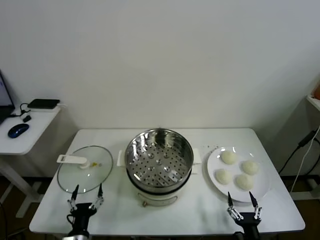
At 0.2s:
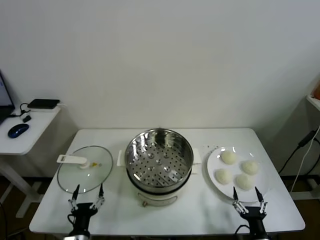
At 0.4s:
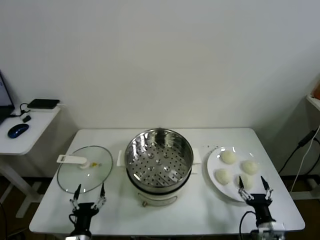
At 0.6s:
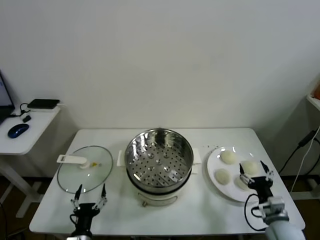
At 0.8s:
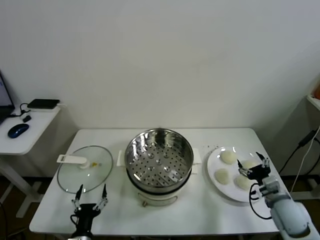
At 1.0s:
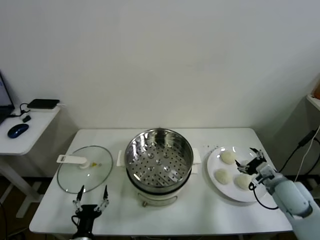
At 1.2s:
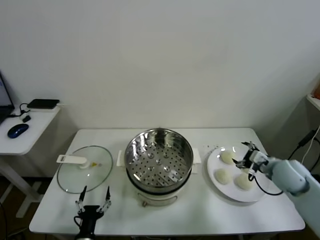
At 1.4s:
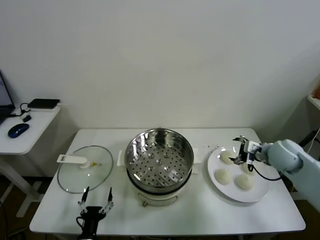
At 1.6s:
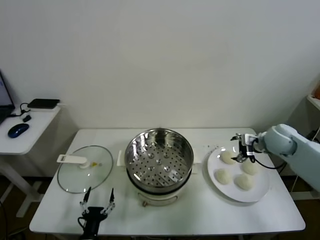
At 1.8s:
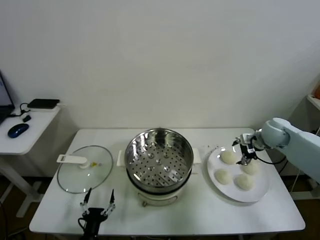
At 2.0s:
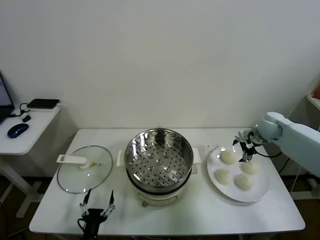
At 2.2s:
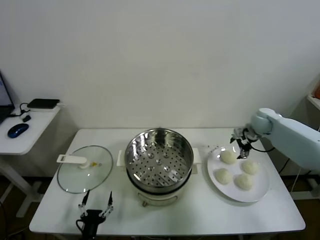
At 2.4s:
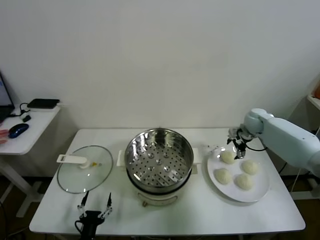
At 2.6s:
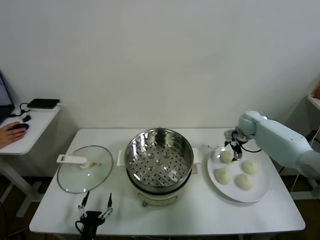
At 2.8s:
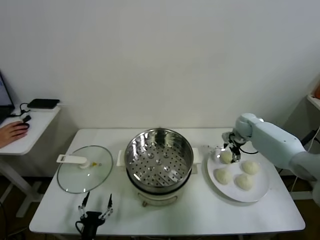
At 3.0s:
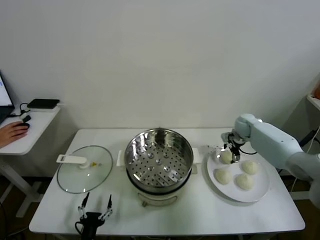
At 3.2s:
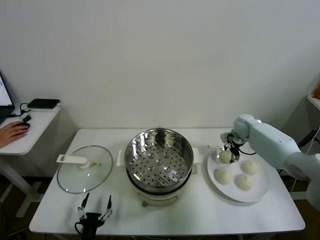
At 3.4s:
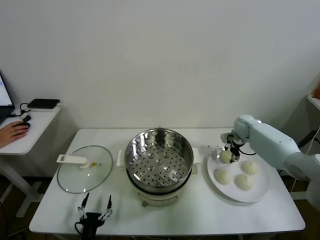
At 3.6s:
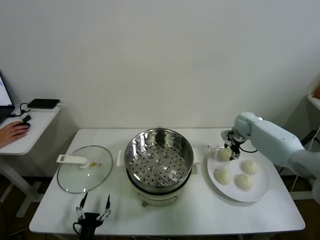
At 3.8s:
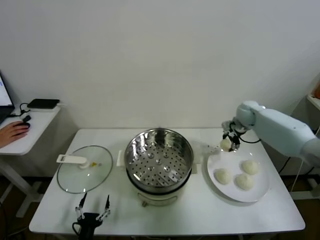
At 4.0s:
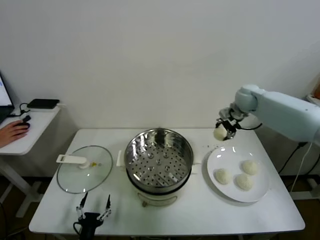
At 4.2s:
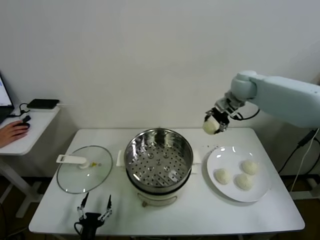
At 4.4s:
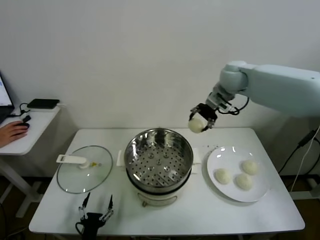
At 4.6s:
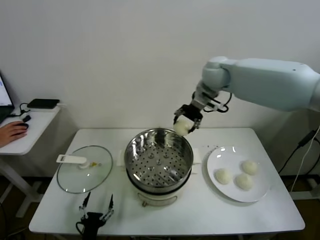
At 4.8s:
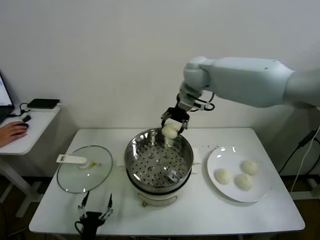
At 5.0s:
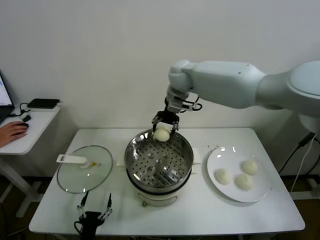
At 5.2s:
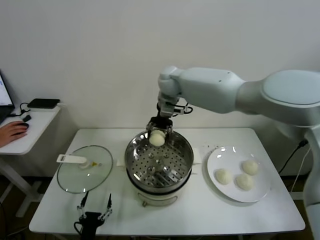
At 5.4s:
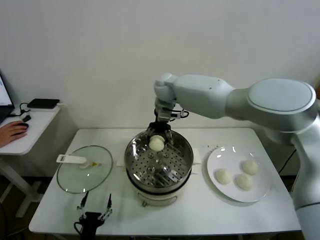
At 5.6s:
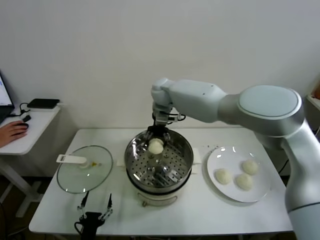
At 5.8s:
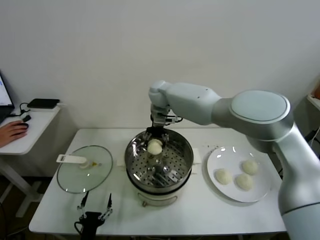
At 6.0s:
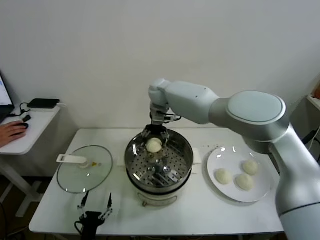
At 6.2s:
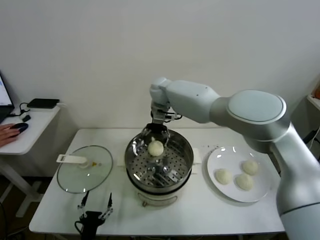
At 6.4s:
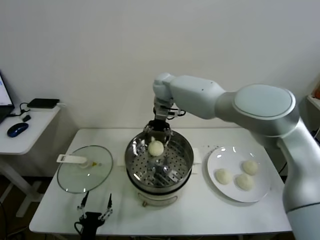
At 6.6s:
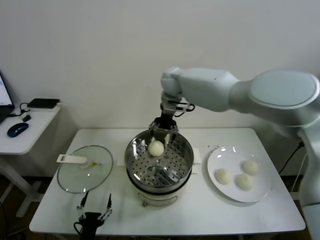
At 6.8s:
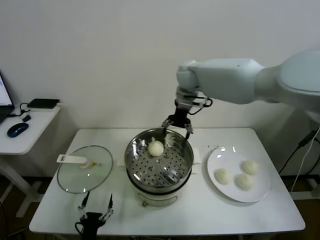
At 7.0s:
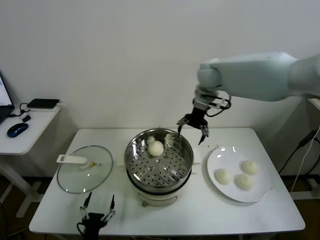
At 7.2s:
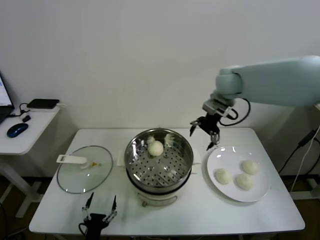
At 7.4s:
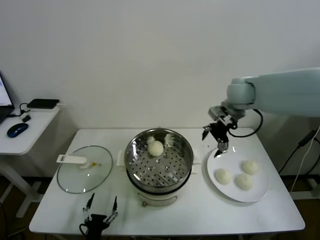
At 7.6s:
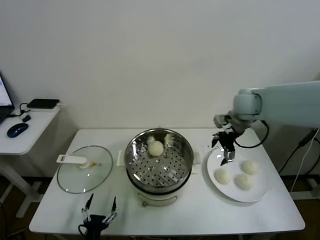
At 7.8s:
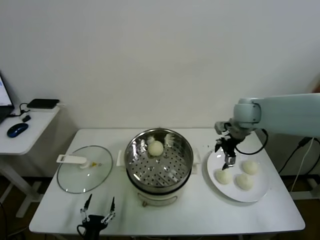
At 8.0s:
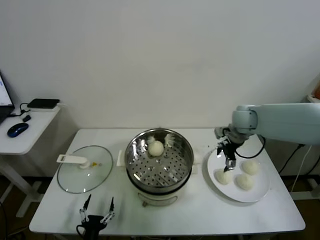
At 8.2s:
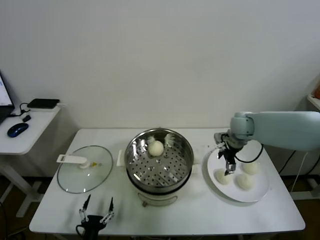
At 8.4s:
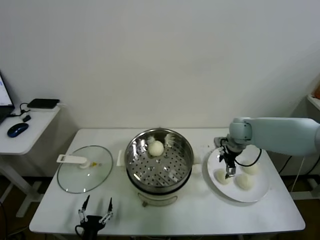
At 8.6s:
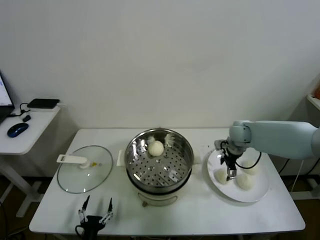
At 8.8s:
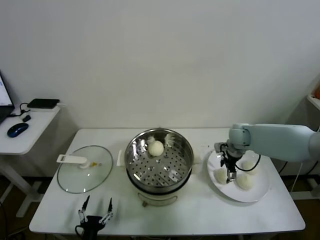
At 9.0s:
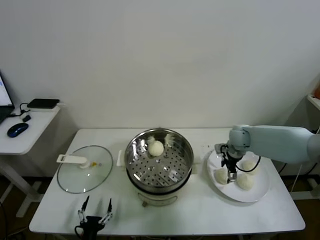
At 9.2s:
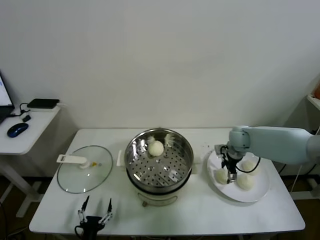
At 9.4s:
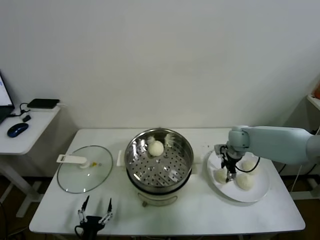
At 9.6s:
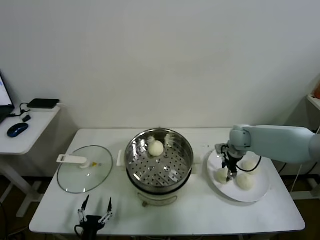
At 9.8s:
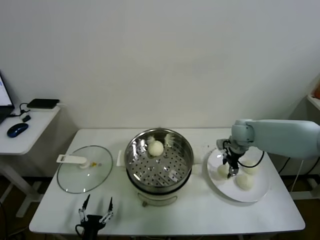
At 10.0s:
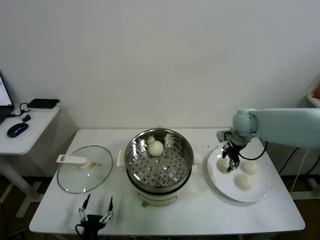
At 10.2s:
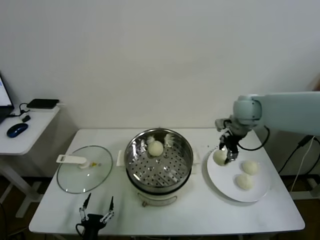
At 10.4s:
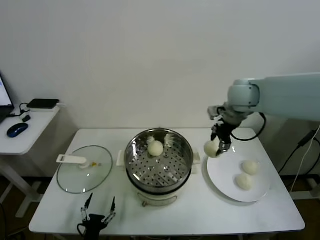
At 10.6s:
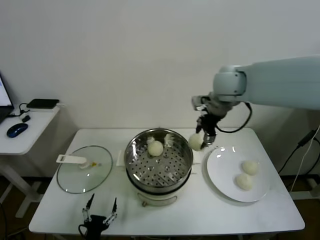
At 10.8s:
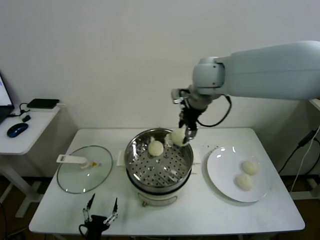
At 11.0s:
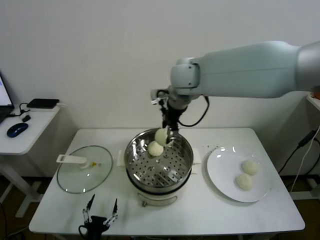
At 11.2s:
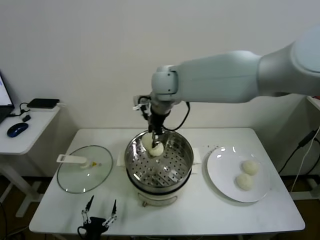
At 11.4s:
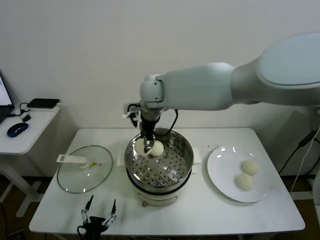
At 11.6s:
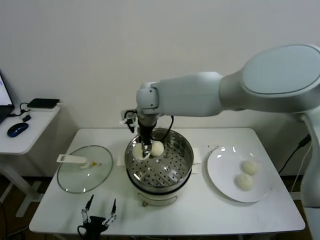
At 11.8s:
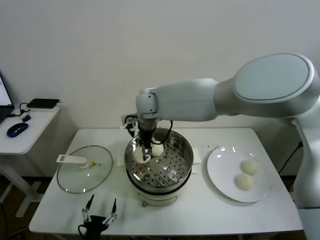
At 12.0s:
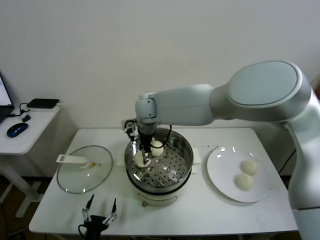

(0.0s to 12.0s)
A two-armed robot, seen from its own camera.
Task of the whole recording: take steamed baozi put them in steamer.
Step, 0.0s - 3.4s: Grasp the baozi in the plate with right gripper.
Step, 3.6s - 6.2s: Place the baozi on the steamer with right gripper.
Step, 6.4s - 9.4s: Grasp the baozi in the plate with right gripper.
1.6s - 3.0s: The right gripper shifts roughly 15 cm forward and downward.
3.0s - 4.4s: The right gripper shifts about 30 cm upward and to the left, and closes its fingers.
4.4s - 6.0s: The right gripper heads to the left and downward, covering about 20 cm, and opens.
6.0s - 7.6s: The right gripper goes approximately 30 cm to the right.
7.6s - 9.0s: The right gripper goes approximately 15 cm downward.
9.0s - 10.4s: The right gripper heads upward, covering approximately 25 cm, and closes up.
10.4s - 12.0s: The right gripper is displaced to the left by some 25 cm.

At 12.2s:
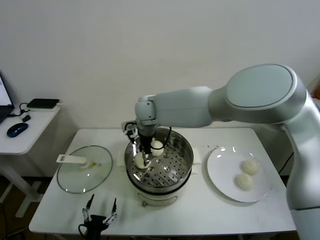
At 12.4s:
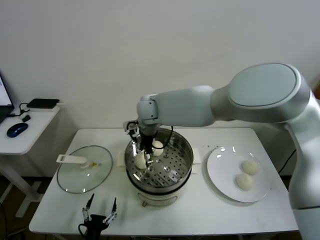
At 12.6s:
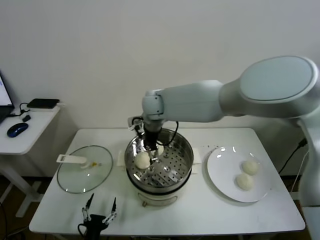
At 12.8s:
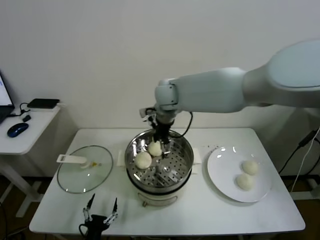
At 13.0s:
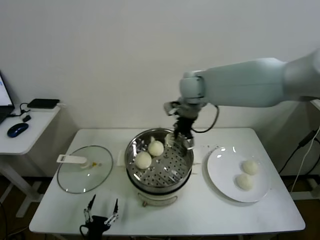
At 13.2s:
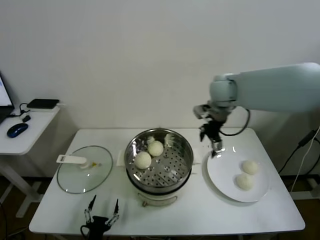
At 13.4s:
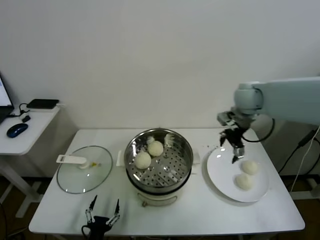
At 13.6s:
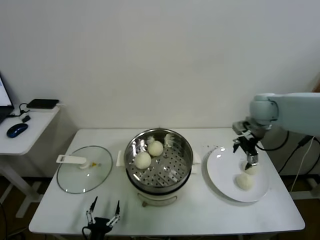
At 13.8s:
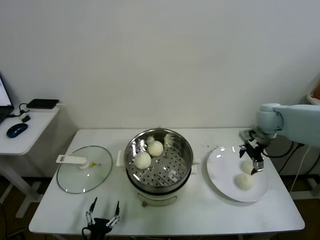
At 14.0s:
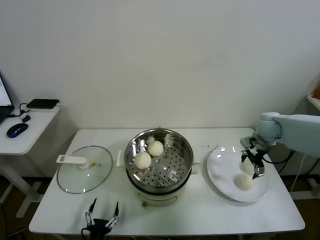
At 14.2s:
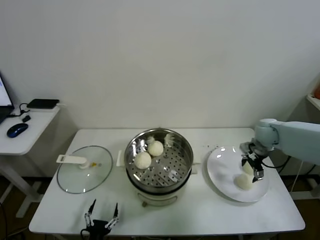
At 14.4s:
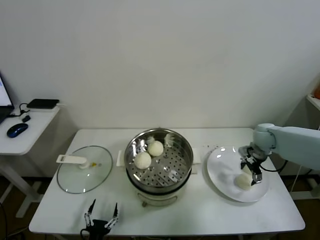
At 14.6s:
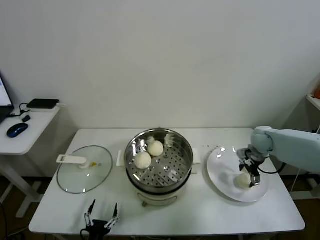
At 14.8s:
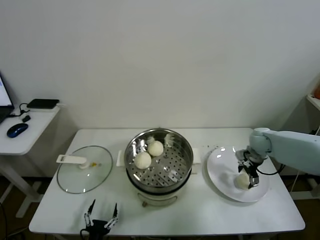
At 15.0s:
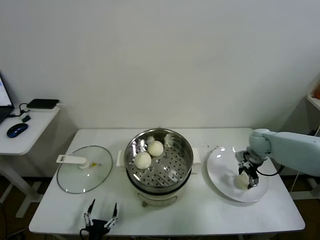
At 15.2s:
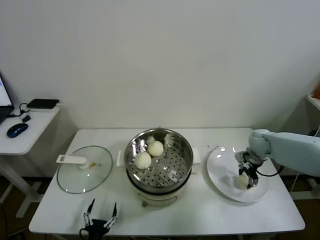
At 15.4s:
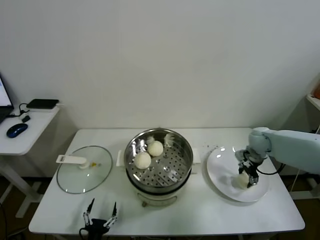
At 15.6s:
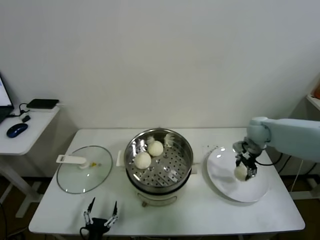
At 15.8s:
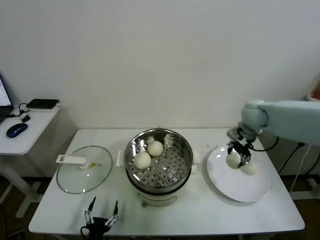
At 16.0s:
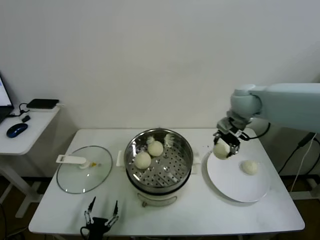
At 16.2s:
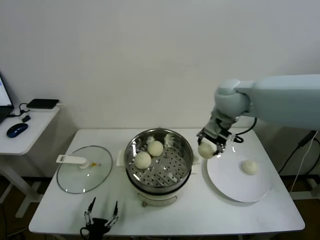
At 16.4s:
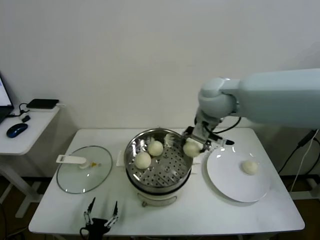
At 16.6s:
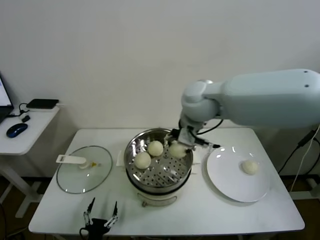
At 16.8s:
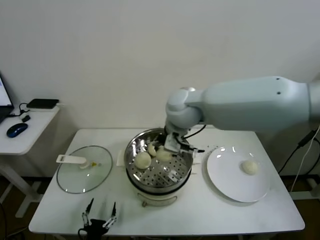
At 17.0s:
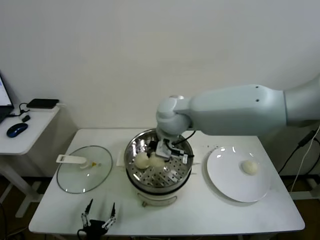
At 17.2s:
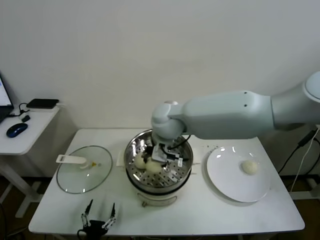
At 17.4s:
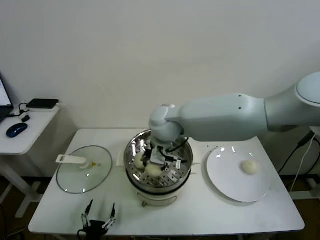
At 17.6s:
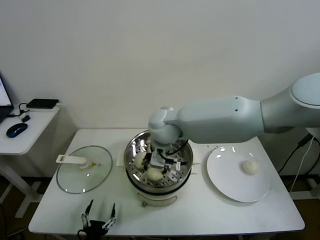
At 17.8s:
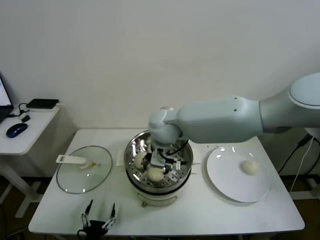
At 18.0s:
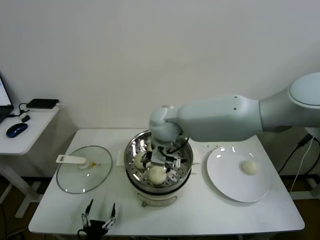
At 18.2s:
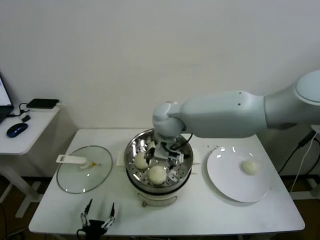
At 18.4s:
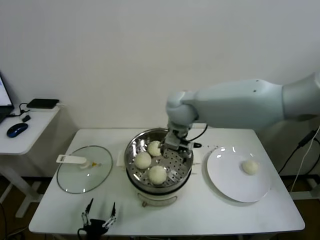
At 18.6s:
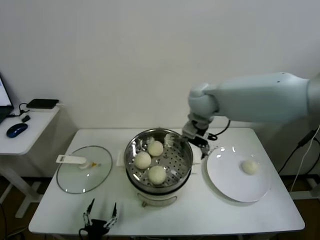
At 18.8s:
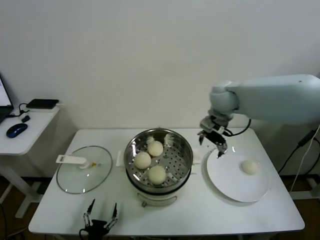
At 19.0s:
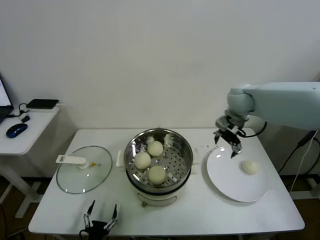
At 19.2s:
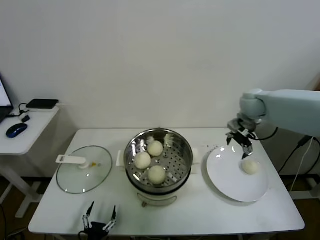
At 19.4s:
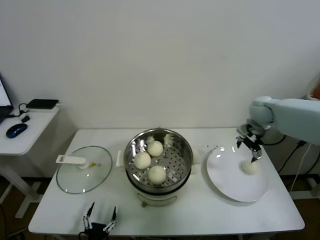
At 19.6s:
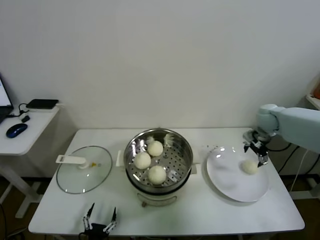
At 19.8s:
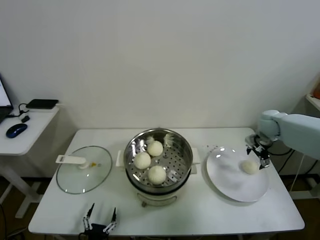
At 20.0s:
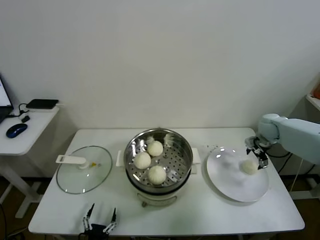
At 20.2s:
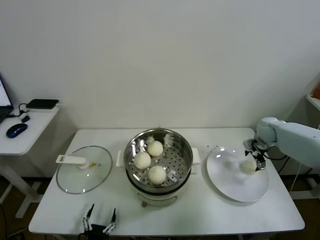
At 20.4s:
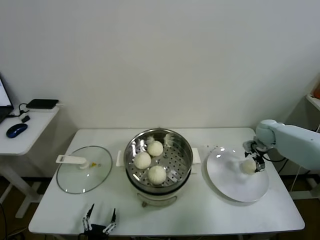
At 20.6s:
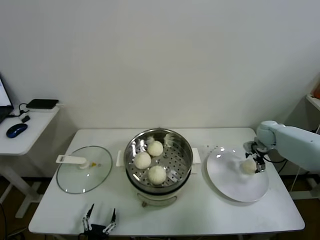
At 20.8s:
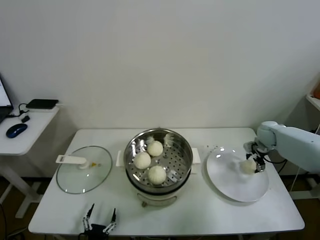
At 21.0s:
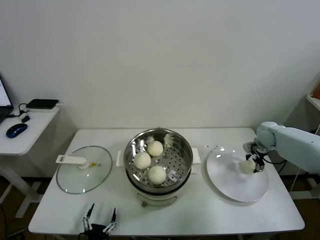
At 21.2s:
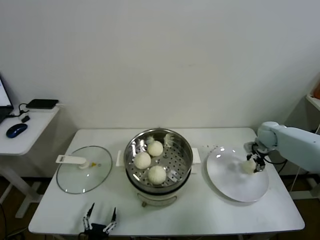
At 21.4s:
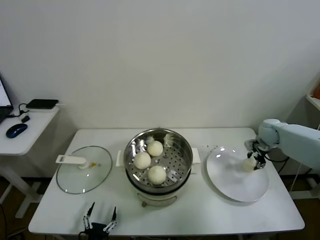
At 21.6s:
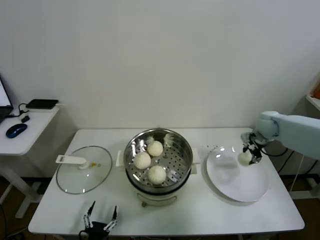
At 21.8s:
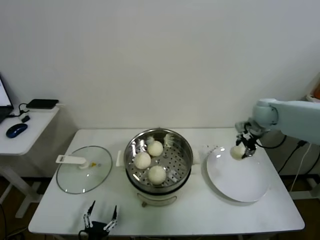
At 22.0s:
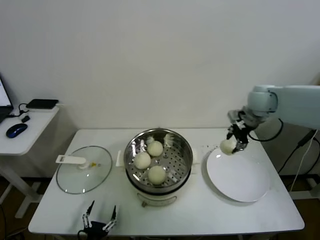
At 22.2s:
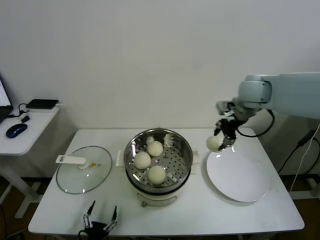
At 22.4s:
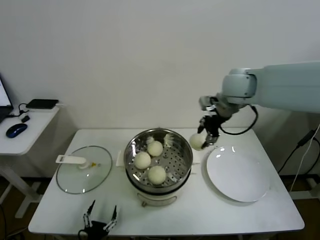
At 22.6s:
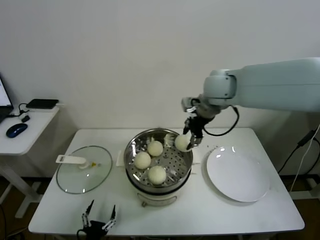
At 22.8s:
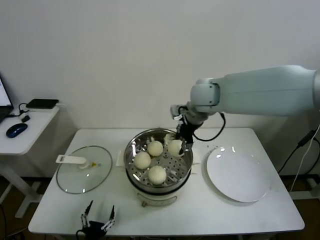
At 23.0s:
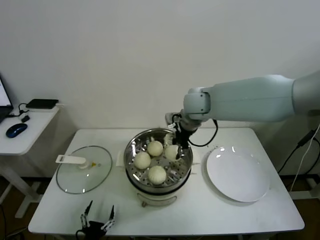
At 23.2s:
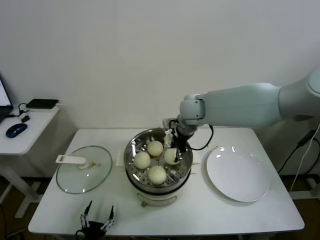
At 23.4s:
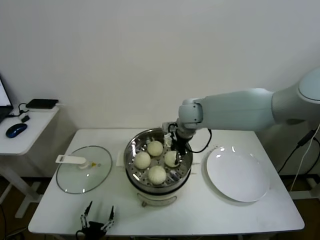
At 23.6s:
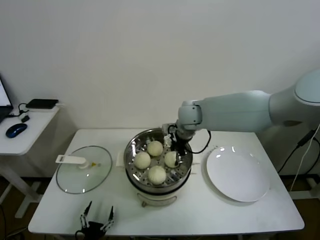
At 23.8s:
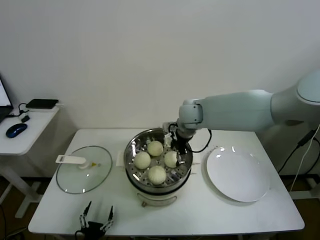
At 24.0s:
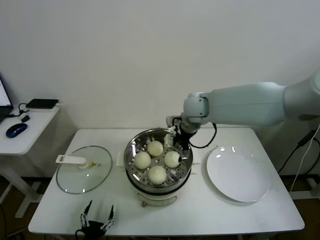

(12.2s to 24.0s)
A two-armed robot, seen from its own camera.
Task of the whole recording: take steamed baozi put them in steamer.
Step, 12.6s - 15.4s: Grasp the baozi in the plate with right gripper.
Step, 15.6s - 18.0s: Place the baozi on the steamer with right gripper.
Step, 18.2s - 21.2s: Grasp the baozi in the plate with right gripper.
Step, 21.4s - 23.8s: Place the baozi on the steamer with right gripper.
12.2s - 13.6s: The right gripper heads to the right, covering some 40 cm, and opens up.
13.6s - 15.2s: The right gripper is displaced downward by approximately 15 cm, and closes its fingers.
15.2s - 16.6s: The right gripper travels to the left and upward by some 40 cm.
16.6s - 18.2s: The right gripper goes some 10 cm downward and to the left, and opens up.
18.2s - 19.6s: The right gripper travels to the right by approximately 40 cm.
19.6s - 21.0s: The right gripper heads downward, covering approximately 10 cm, and closes.
21.0s - 22.6s: The right gripper goes some 35 cm to the left and upward, and closes.
22.6s - 24.0s: The right gripper moves downward and to the left, some 10 cm, and opens up.
